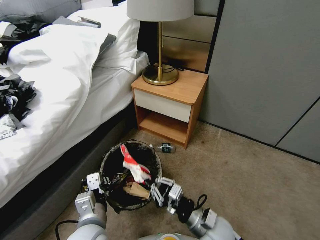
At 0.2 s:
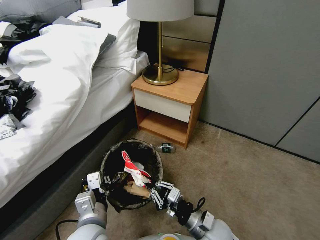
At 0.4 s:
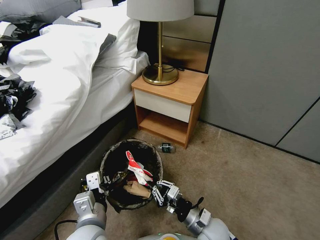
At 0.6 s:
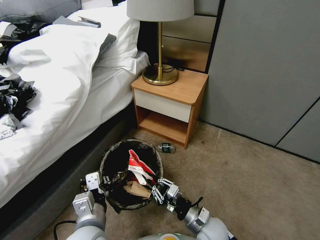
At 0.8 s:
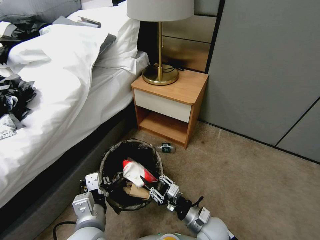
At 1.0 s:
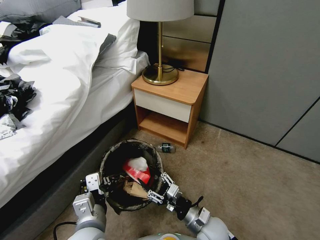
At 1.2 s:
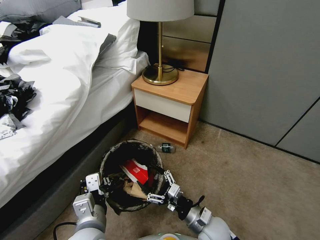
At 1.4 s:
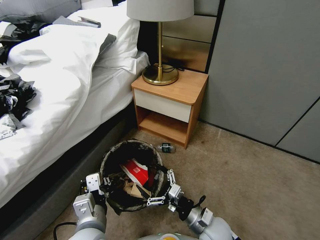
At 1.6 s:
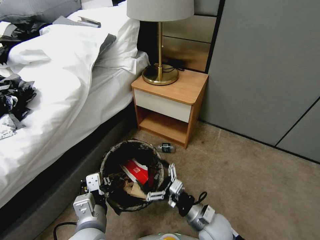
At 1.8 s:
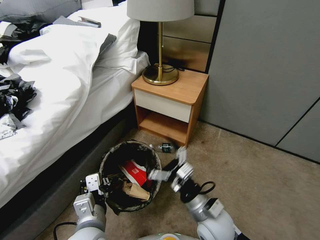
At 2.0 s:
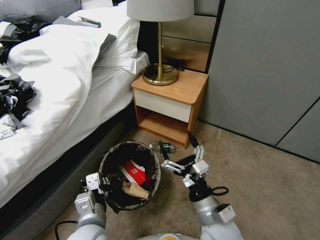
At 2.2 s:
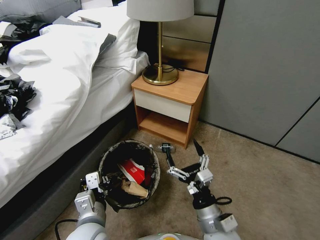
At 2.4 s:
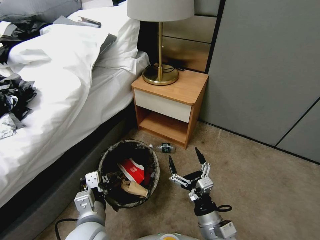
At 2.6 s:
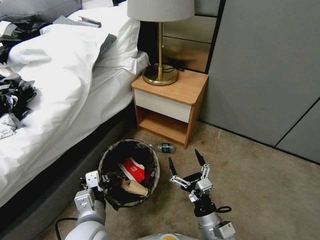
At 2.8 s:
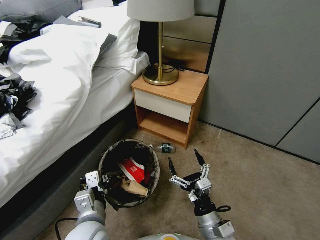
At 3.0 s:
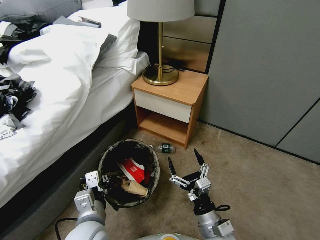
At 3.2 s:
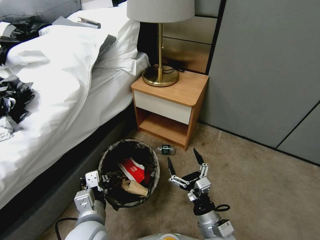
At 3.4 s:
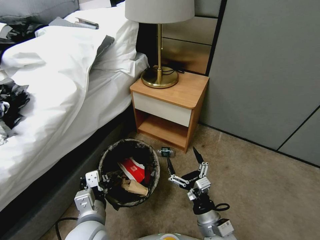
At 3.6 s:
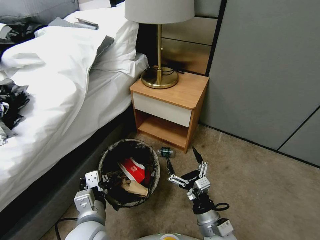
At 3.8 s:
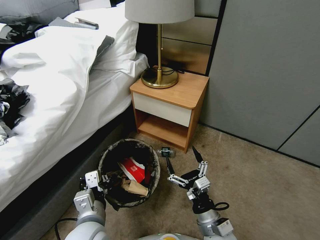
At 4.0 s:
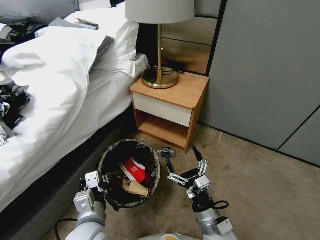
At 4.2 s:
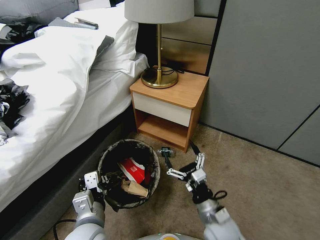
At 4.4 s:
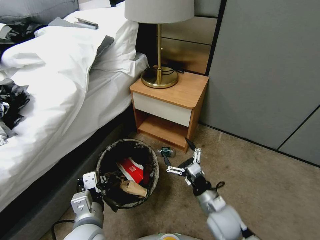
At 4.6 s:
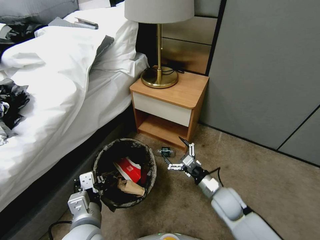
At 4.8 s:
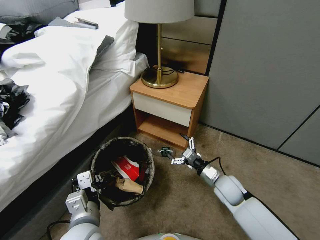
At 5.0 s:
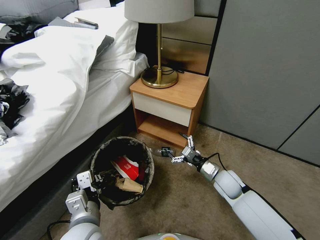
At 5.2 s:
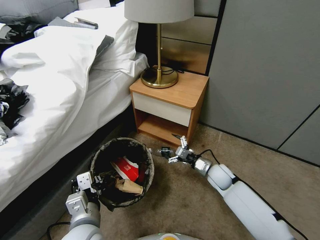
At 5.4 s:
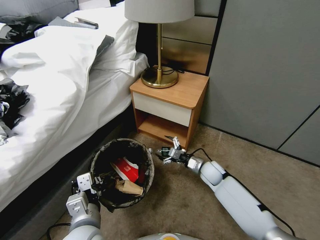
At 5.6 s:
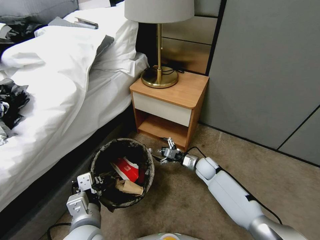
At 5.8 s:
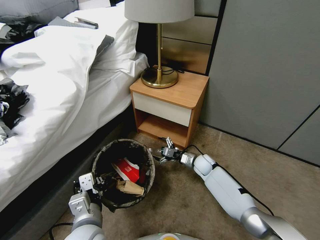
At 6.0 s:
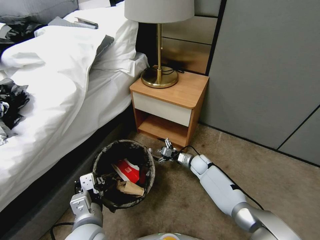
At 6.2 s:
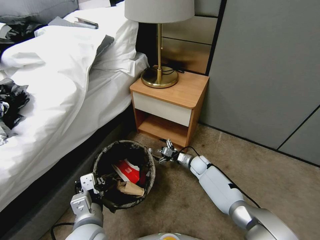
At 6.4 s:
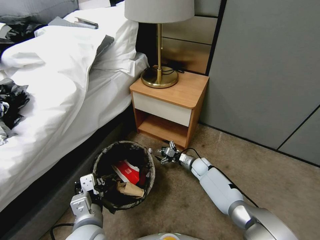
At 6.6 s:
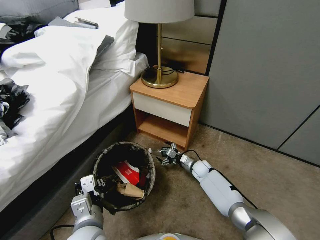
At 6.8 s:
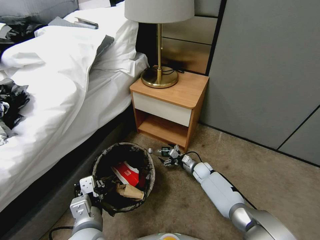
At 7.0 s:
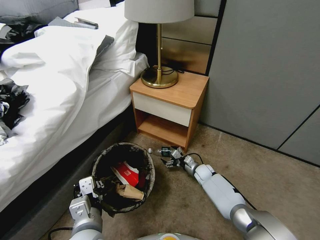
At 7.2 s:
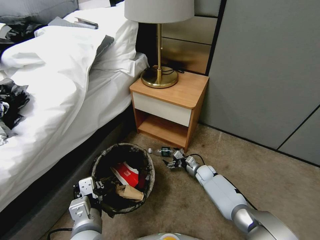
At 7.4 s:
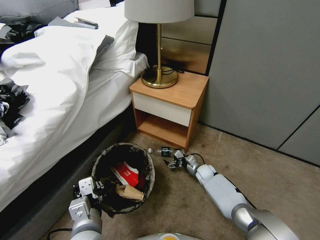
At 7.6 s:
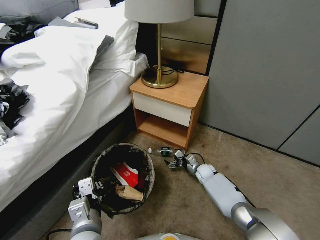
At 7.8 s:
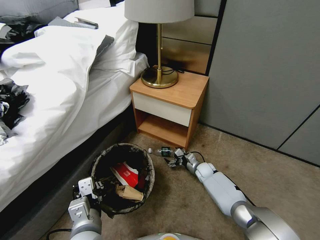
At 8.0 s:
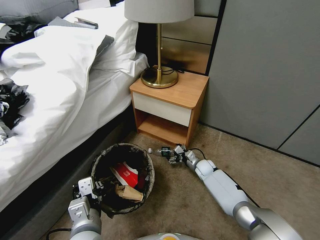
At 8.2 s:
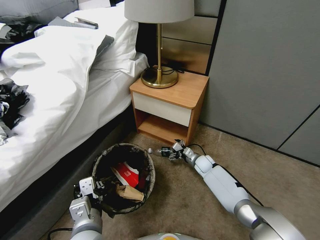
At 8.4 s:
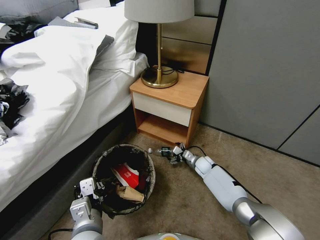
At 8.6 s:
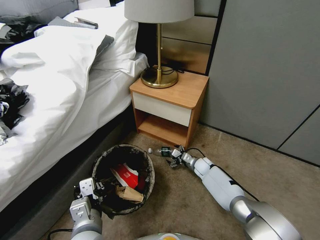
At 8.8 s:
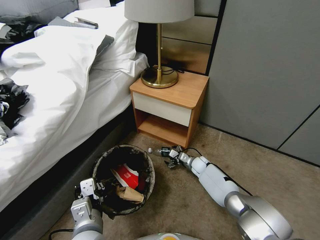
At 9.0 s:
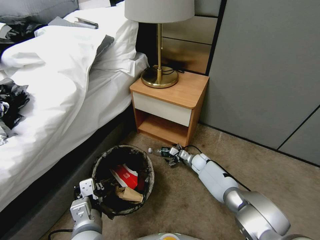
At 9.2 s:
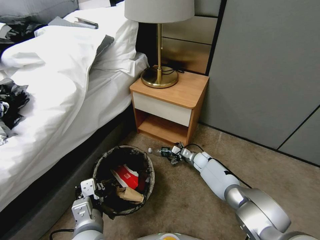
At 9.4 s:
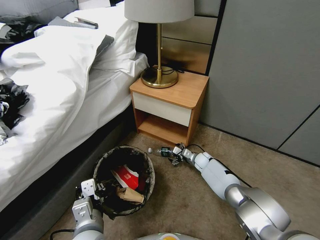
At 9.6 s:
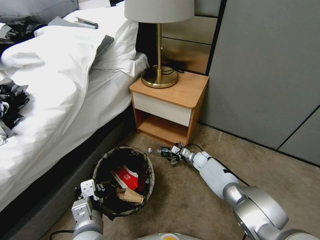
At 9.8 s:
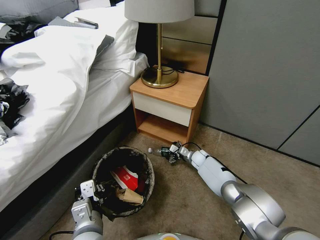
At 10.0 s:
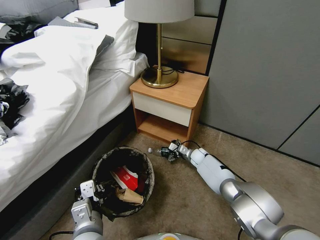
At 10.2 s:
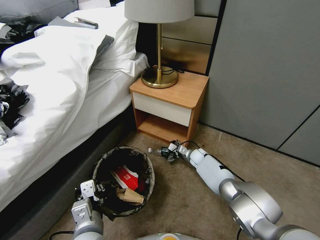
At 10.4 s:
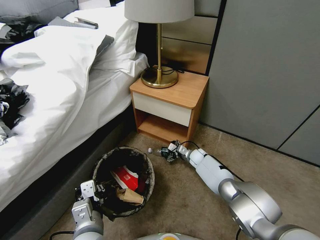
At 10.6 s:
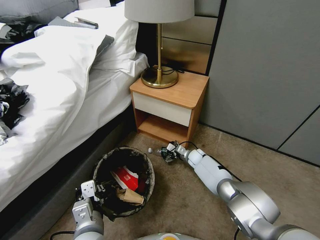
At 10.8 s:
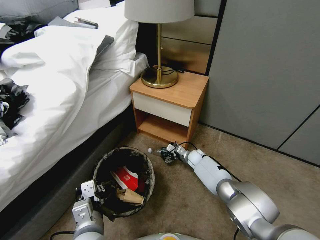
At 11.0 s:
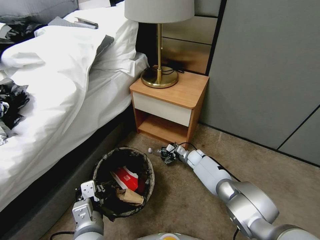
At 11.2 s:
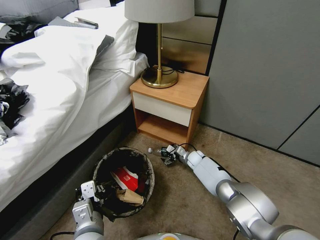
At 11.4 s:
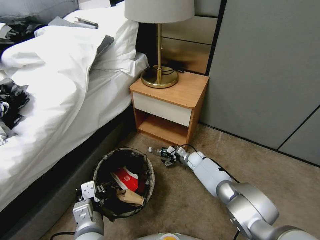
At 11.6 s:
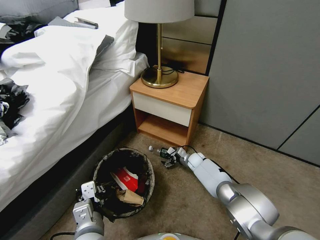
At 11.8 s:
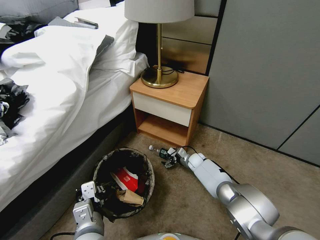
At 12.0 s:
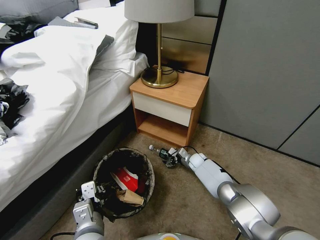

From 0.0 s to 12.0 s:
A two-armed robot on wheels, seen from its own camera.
Task of the whole recording: Pick up the trash bin, then pick up the garbage from the floor and place it into the trash bin.
From 0.0 s to 1.6 s: The right gripper opens.
From 1.6 s to 3.0 s: The right gripper reaches approximately 10 cm upward, then returns.
From 3.0 s to 4.4 s: The right gripper shifts roughly 10 cm forward.
From 4.4 s to 6.0 s: The right gripper heads forward and downward, covering some 25 cm.
From 6.0 s to 7.6 s: The right gripper travels downward by roughly 5 cm.
From 7.6 s to 9.0 s: The right gripper changes place by some 5 cm.
From 9.0 s to 12.0 s: The grippers move only a little.

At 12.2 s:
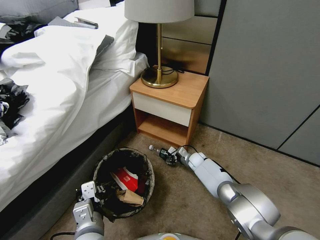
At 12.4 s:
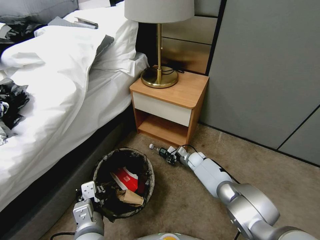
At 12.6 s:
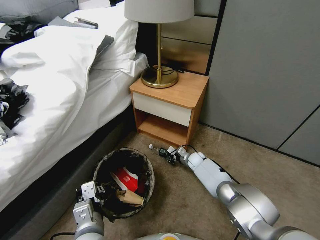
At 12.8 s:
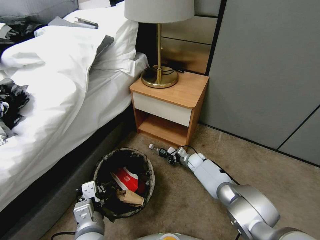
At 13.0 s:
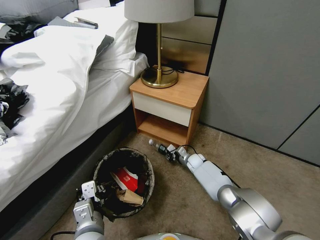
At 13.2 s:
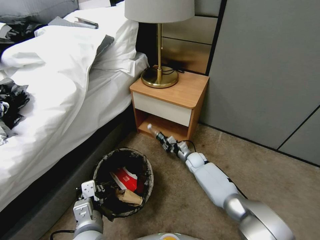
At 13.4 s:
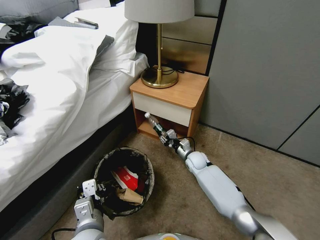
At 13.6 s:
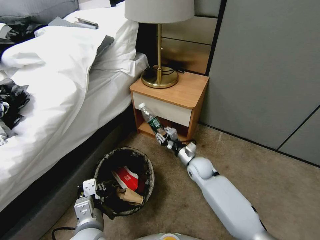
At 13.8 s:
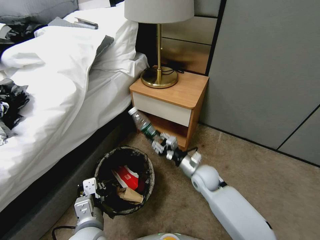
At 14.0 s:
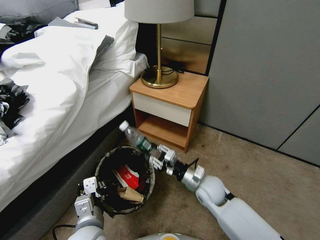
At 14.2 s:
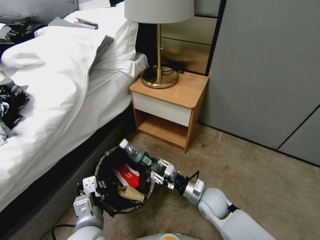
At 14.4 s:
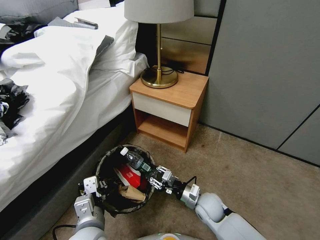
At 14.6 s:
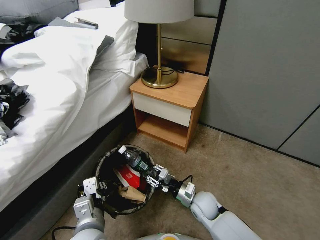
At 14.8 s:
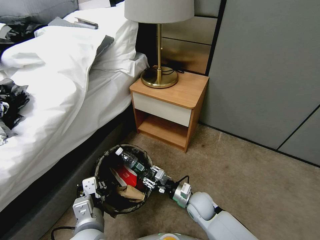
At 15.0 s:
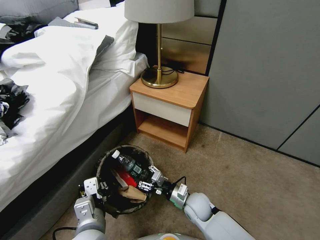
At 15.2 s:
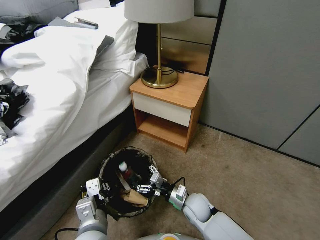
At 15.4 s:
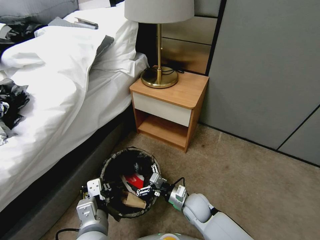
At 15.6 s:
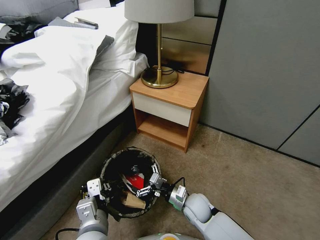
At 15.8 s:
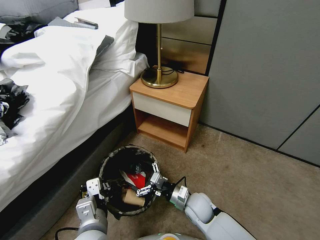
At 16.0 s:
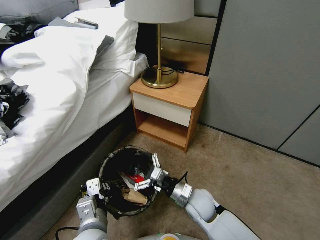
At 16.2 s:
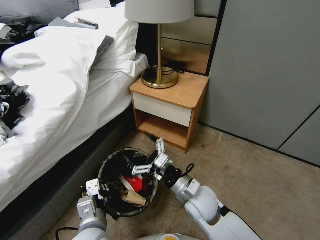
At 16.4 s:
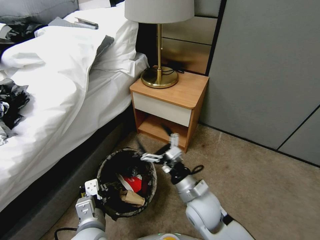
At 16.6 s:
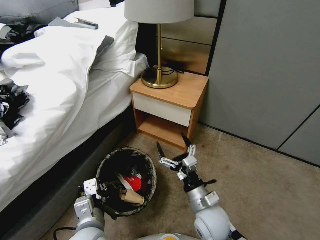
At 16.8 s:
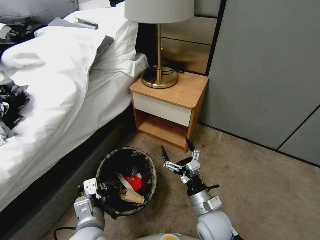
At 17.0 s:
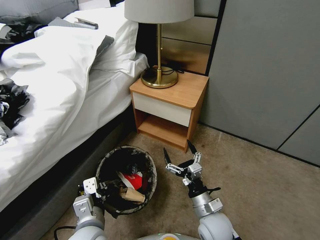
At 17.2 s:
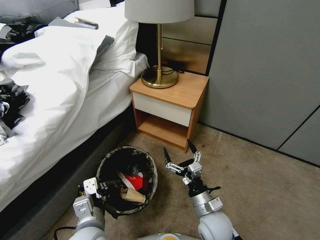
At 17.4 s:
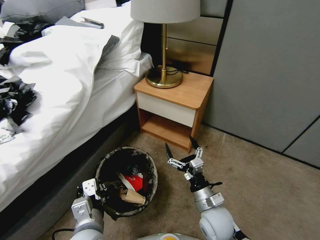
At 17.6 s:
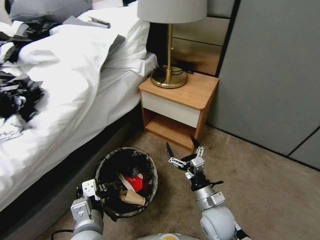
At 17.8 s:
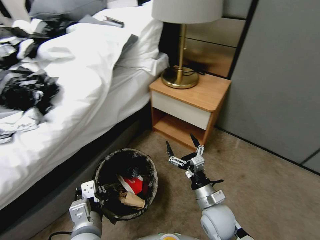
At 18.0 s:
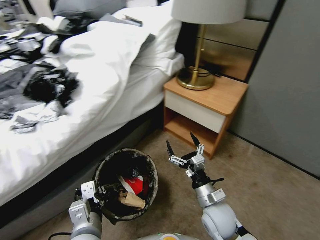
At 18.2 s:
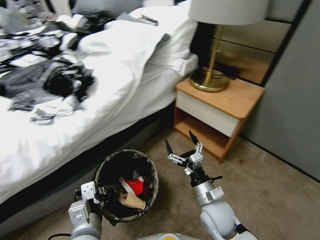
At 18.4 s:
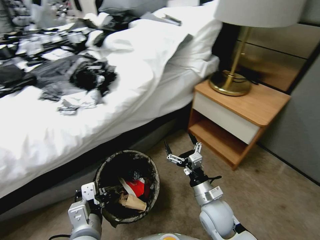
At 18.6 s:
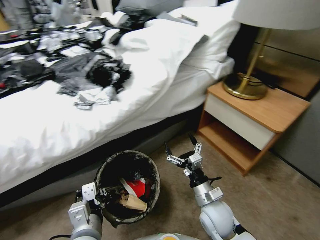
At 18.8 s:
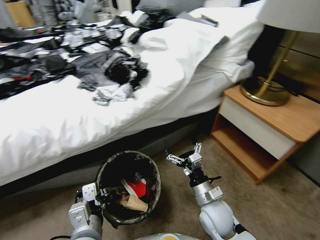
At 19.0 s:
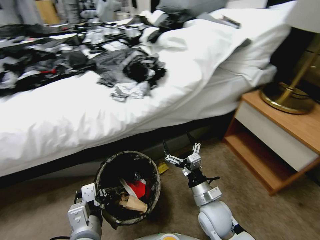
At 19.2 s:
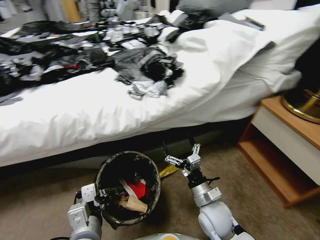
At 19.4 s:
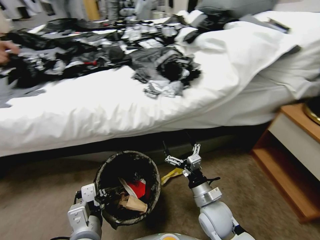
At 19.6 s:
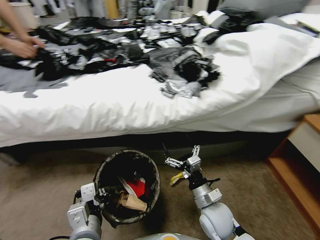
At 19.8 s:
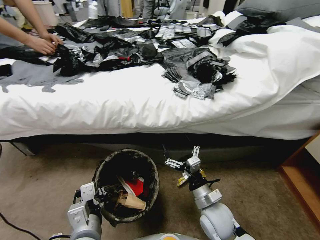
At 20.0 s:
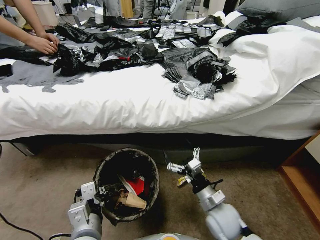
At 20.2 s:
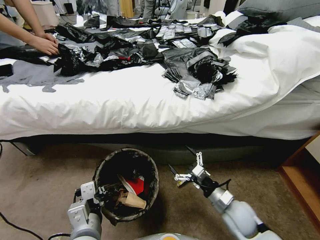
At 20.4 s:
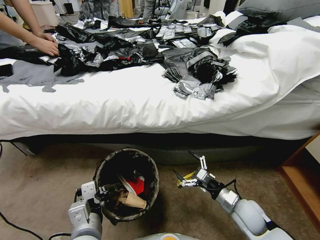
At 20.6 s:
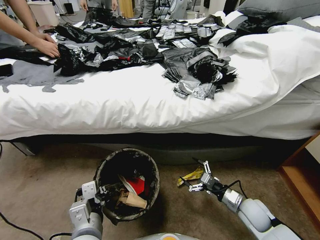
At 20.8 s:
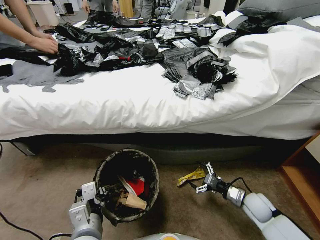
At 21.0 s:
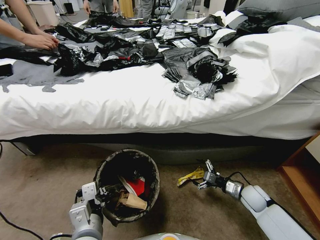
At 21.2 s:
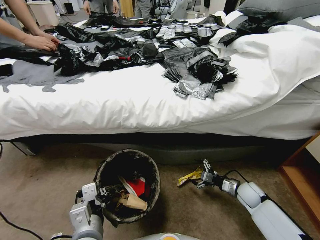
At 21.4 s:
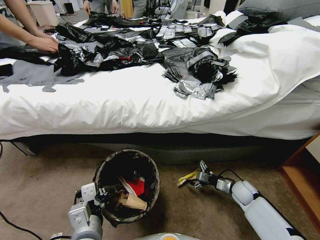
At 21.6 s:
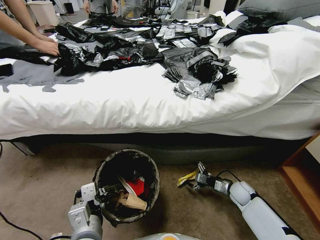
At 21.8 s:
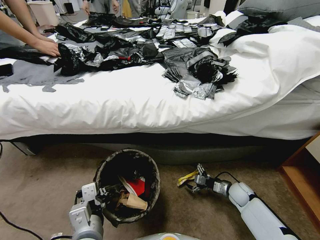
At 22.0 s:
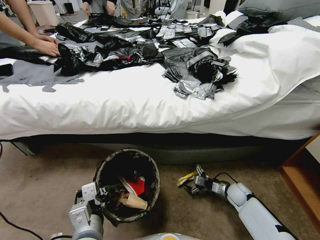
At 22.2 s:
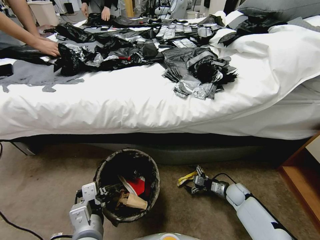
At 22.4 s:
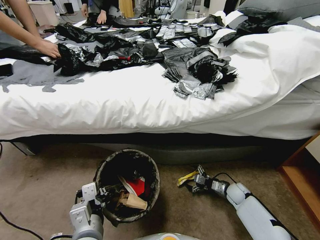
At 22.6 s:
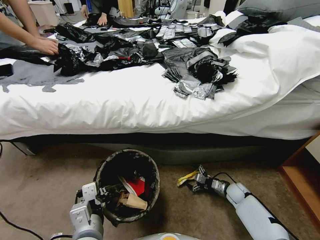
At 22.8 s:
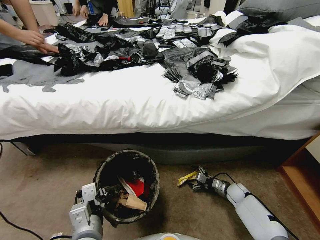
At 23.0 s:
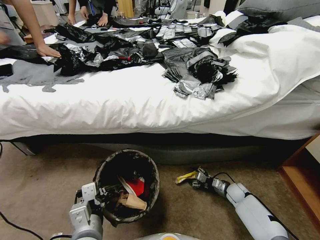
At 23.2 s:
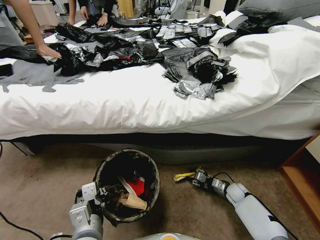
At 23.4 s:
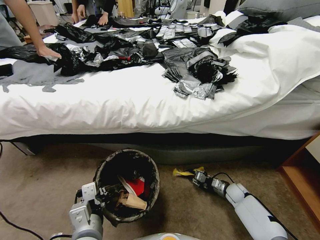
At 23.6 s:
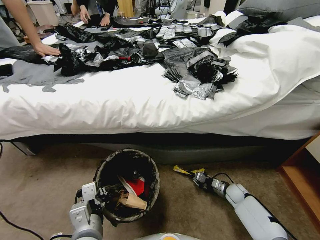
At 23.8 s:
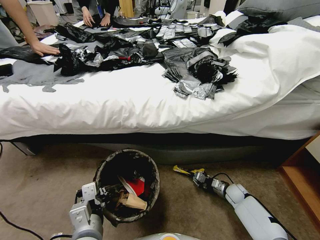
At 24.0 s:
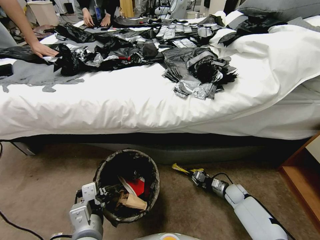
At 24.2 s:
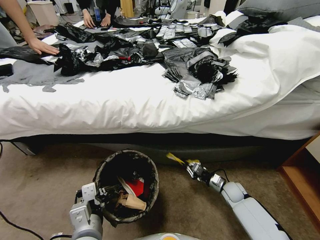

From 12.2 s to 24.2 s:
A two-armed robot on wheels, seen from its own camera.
Task of the whole recording: Pick up the trash bin, then pick up the garbage from the floor and place it into the trash bin.
From 12.2 s to 13.8 s: The right gripper shifts some 20 cm upward and backward.
From 13.8 s to 15.2 s: The right gripper travels backward and downward by roughly 10 cm, and opens up.
From 15.2 s to 16.6 s: The right gripper shifts roughly 10 cm upward and backward.
From 19.8 s to 21.2 s: The right gripper travels to the right, downward and forward by roughly 25 cm.
From 21.2 s to 22.6 s: The right gripper moves downward, roughly 5 cm.
From 22.6 s to 24.2 s: The right gripper closes.
